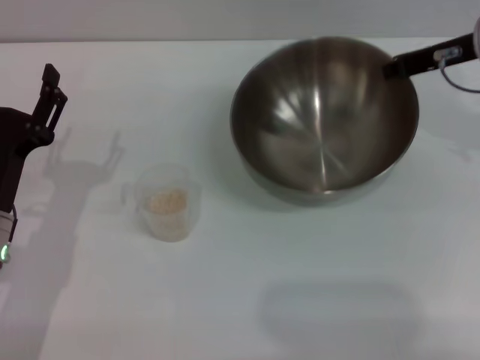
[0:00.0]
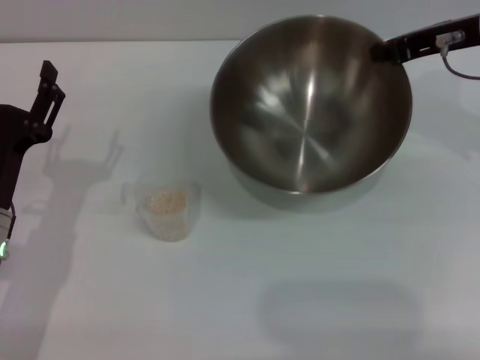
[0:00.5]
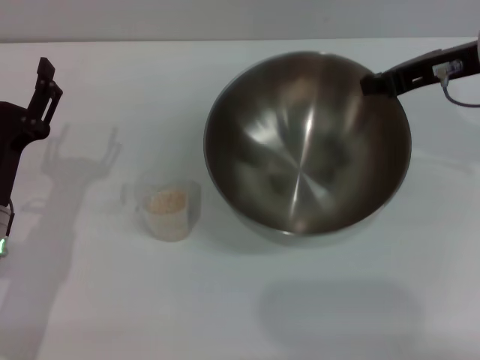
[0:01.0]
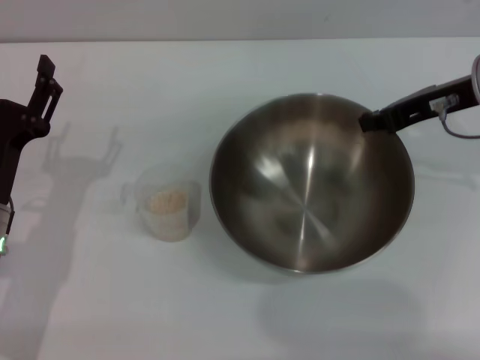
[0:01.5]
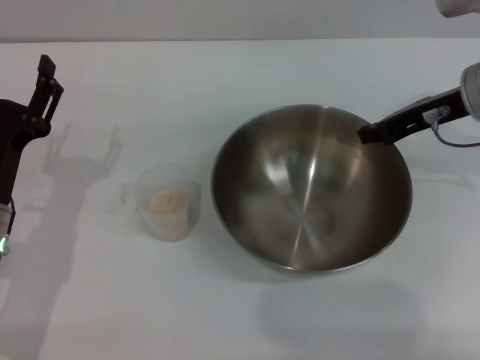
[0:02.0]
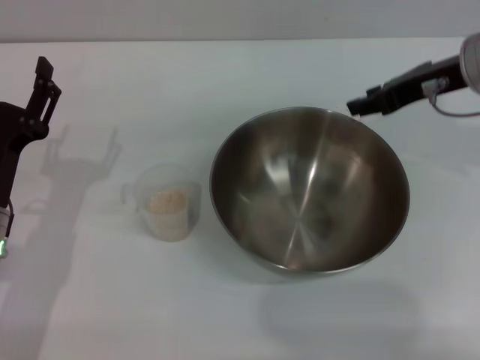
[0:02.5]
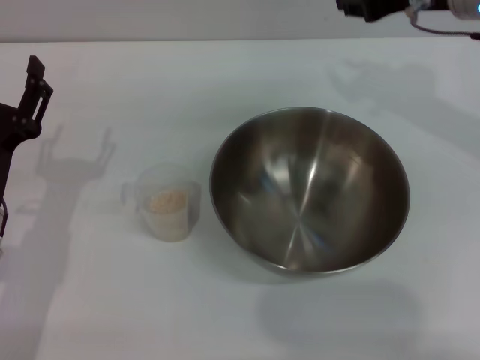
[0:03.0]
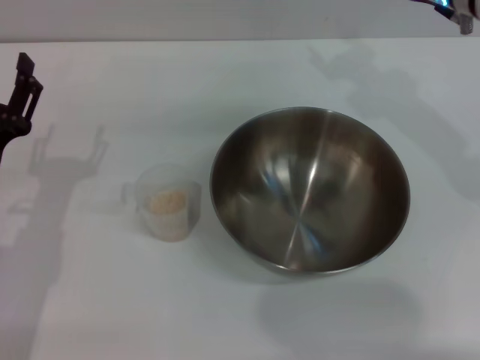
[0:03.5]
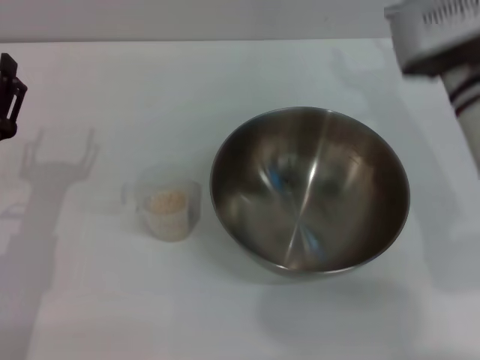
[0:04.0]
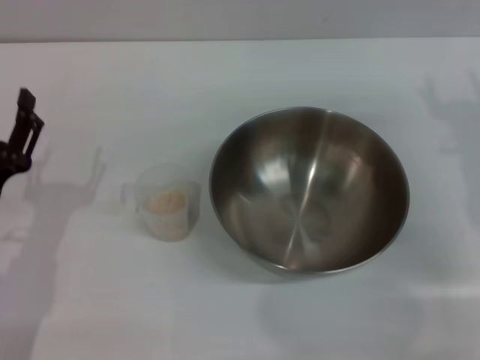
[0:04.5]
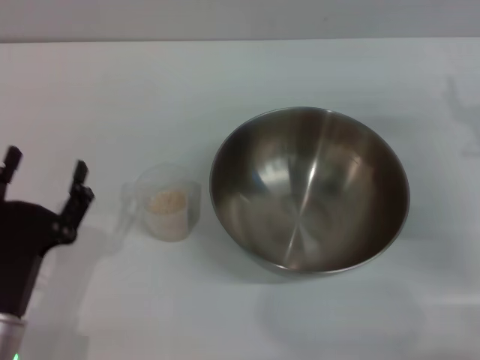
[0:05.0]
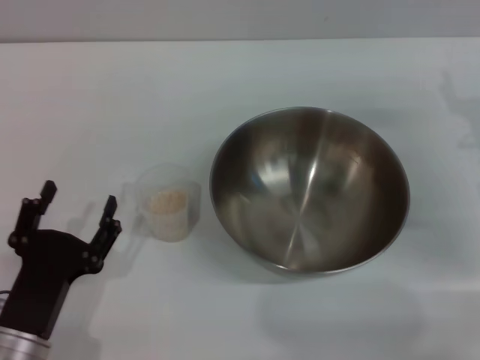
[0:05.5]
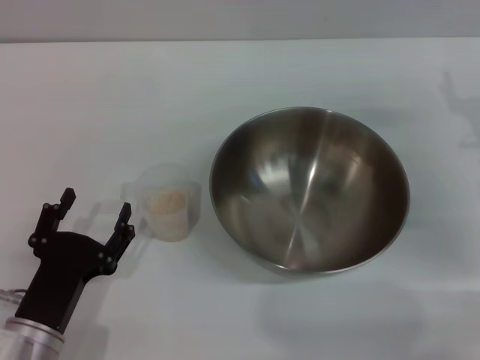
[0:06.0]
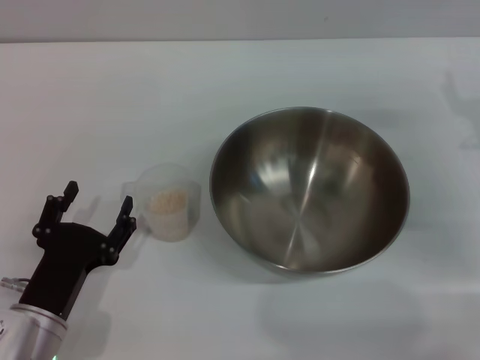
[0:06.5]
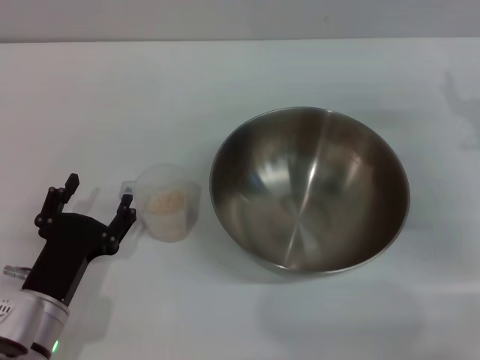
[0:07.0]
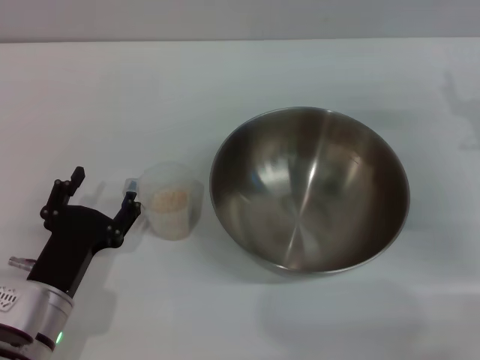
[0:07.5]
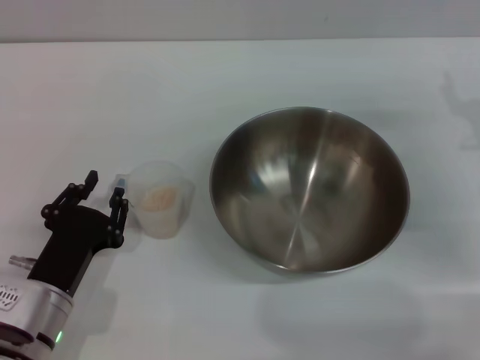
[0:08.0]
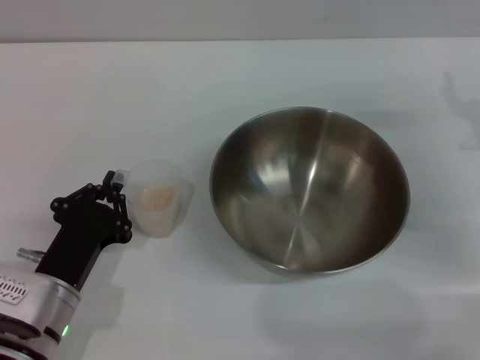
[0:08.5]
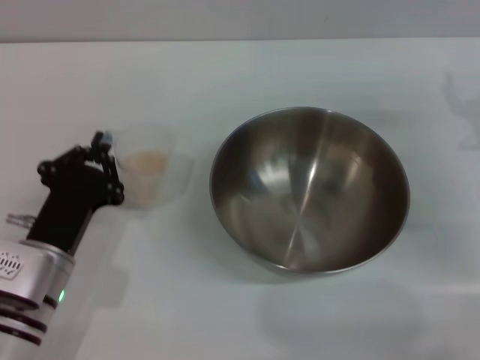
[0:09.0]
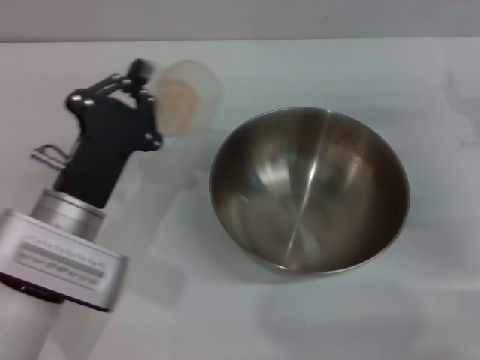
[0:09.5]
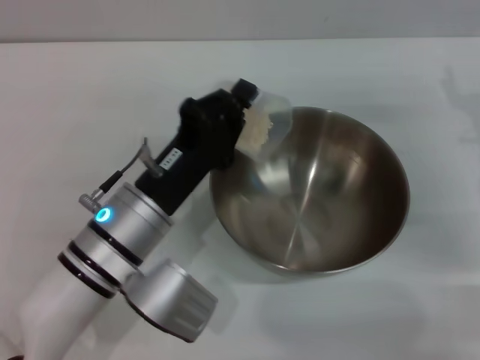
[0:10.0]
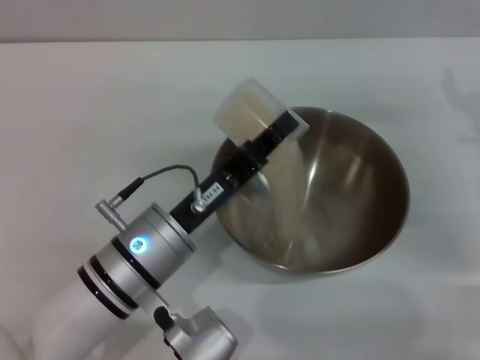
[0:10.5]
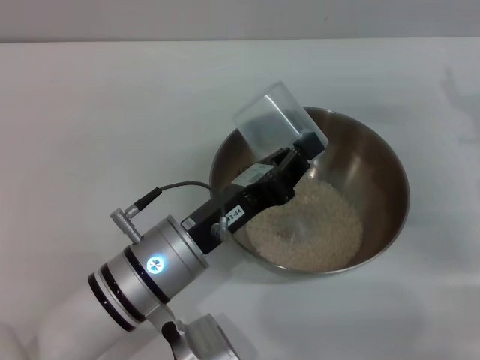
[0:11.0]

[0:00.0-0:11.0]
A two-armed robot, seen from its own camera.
Task of the whole recording: Place the bowl in the middle of the table with one hand and pour the rice from the grain cup into it with the other hand.
Step, 0:00.5 to 0:02.5: Place the bowl in the center of view with the right gripper.
Step, 0:03.0 to 0:09.0: Pick up the cup with rice in it with the left gripper.
Step, 0:09.5 to 0:11.0: Pour the rice from the cup into the bowl with the left gripper.
0:02.0 to 0:03.5: The right gripper moves to the left, about 5 cm, and opens.
0:03.5 to 0:05.5: The left gripper moves backward, some 10 cm, while the right gripper moves downward, to the right and backward, about 20 cm, and opens up.
0:05.5 to 0:07.5: The grippers stay close to where they were, moving slightly.
0:07.5 to 0:09.0: The left gripper closes up.
0:09.0 to 0:11.0: The left gripper is displaced to the right by some 10 cm.

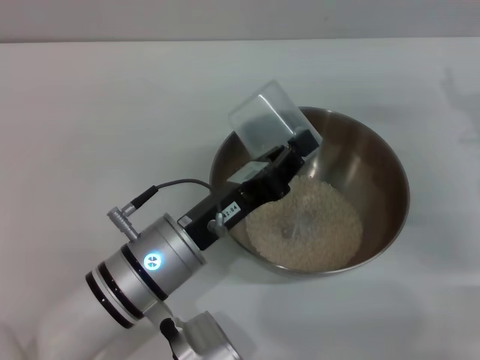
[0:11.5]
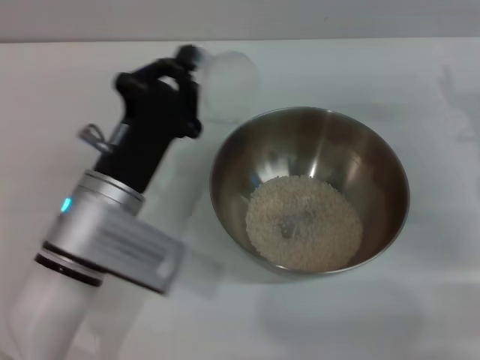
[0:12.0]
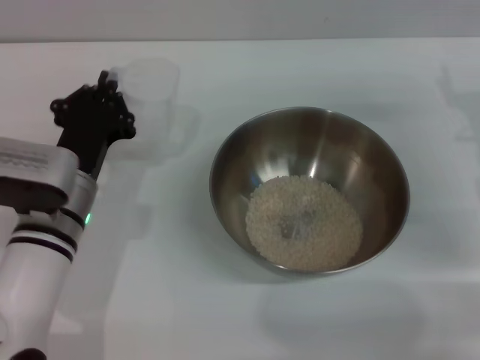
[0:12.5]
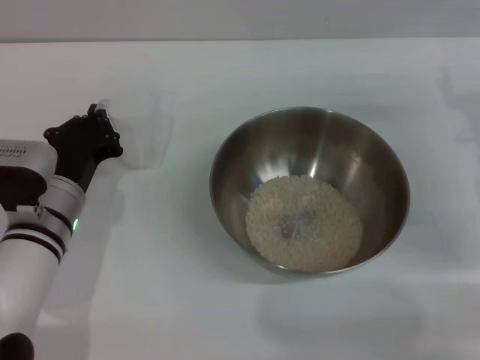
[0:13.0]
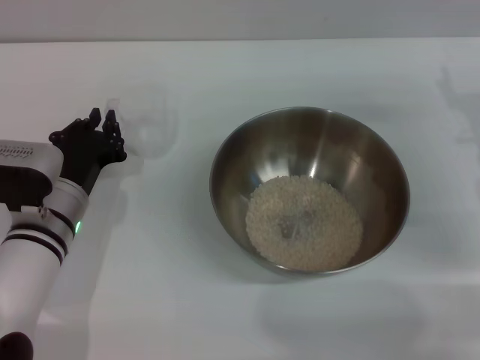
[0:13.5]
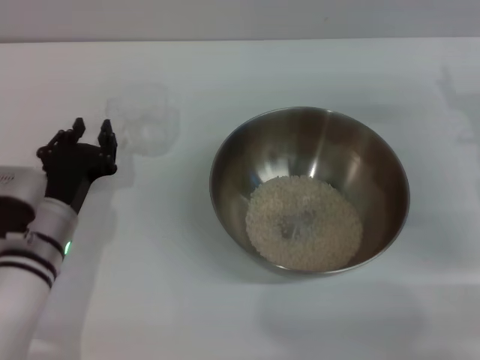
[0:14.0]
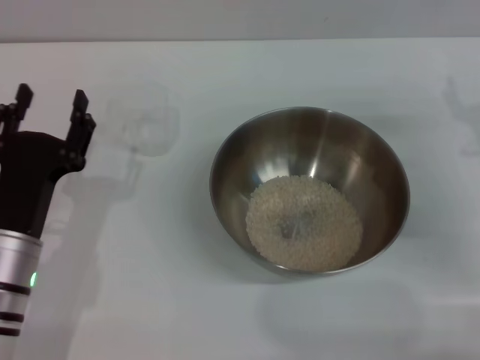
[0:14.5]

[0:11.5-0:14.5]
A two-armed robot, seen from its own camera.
Task of the whole recording: Place the bowl in the middle of the table with one hand and pour the rice from the grain cup into it with the other hand.
Step, 0:11.5 to 0:14.0: Place the cup on the table with the left gripper.
0:11.5 to 0:13.0: The left gripper goes approximately 10 cm to the left and forward.
0:13.0 to 0:14.5: The left gripper is displaced backward by about 10 cm, and opens up.
